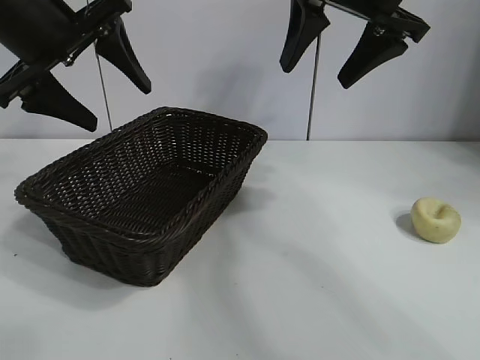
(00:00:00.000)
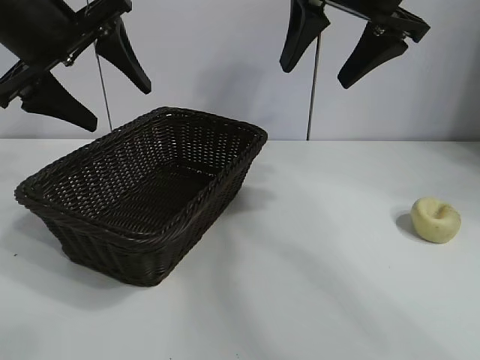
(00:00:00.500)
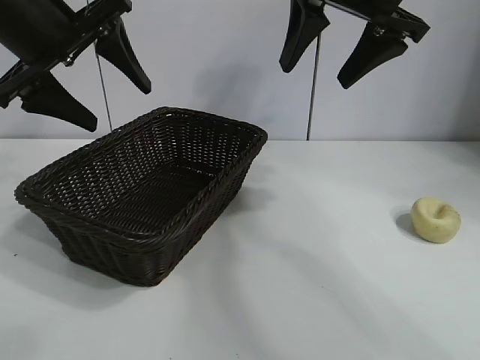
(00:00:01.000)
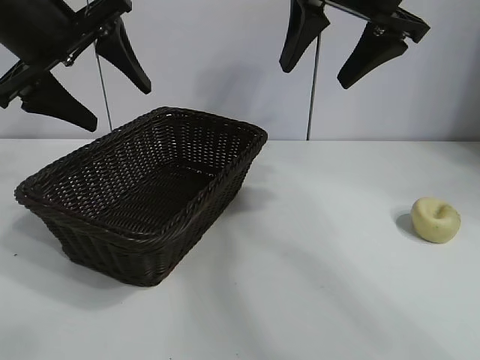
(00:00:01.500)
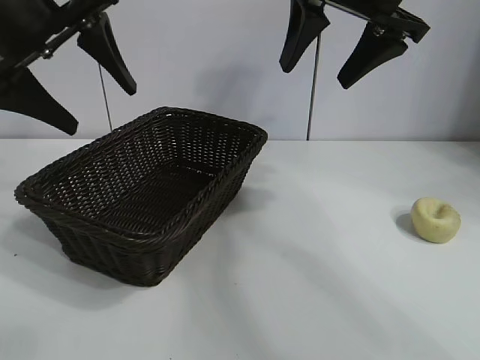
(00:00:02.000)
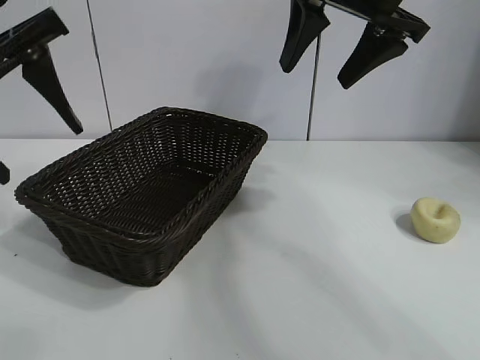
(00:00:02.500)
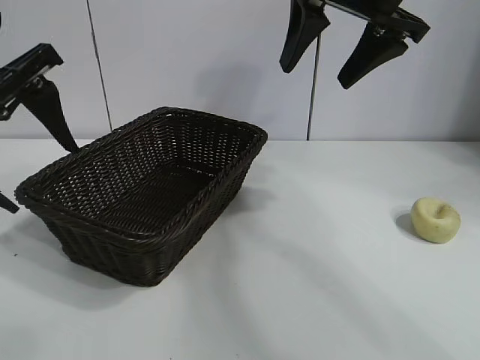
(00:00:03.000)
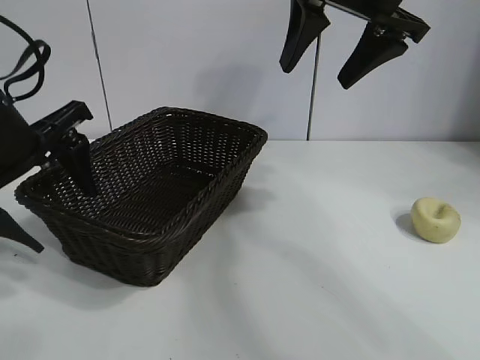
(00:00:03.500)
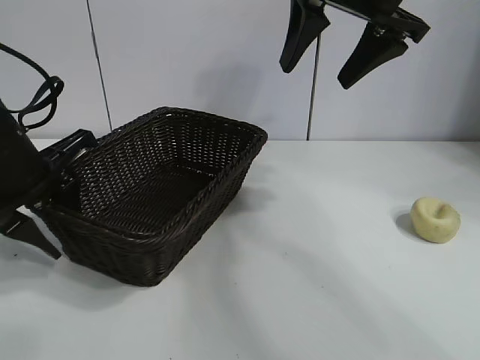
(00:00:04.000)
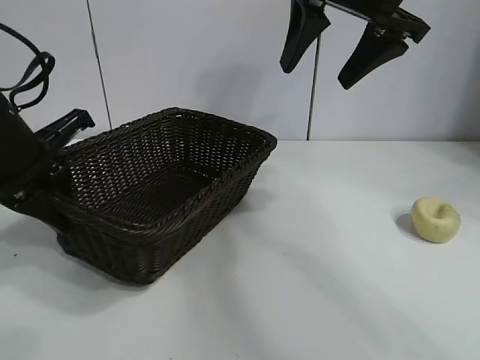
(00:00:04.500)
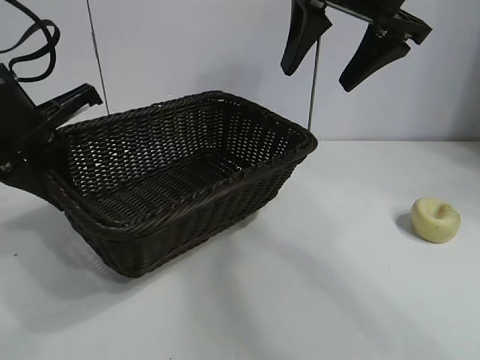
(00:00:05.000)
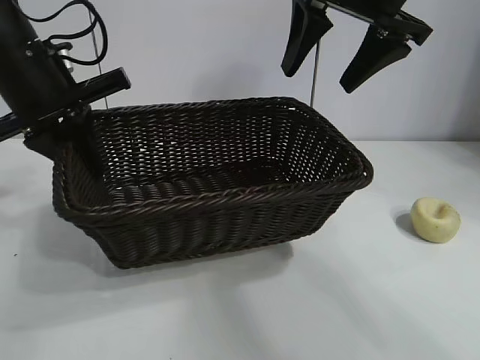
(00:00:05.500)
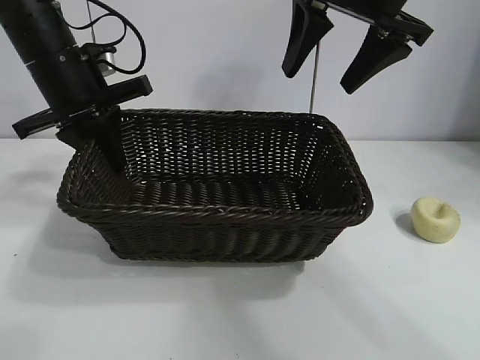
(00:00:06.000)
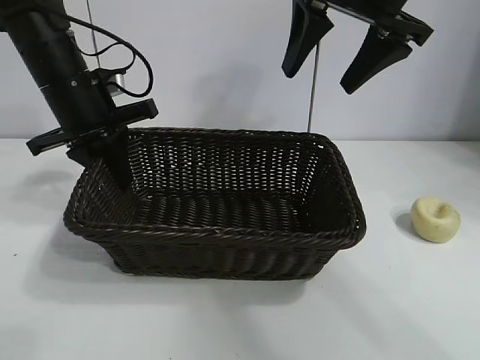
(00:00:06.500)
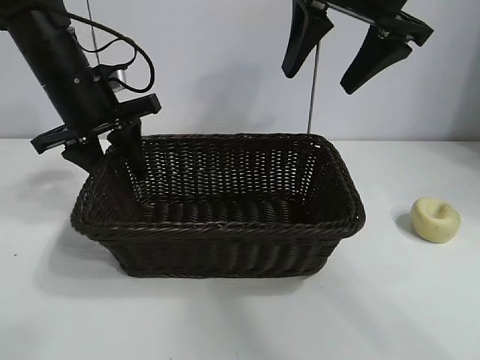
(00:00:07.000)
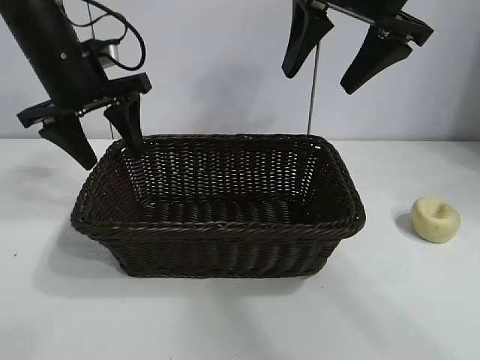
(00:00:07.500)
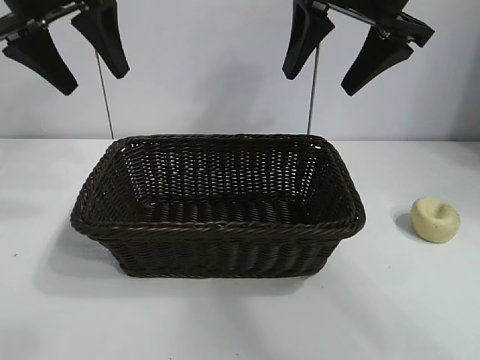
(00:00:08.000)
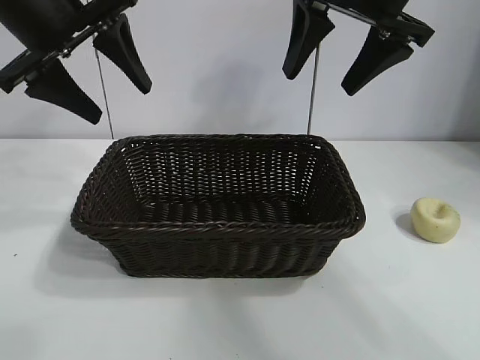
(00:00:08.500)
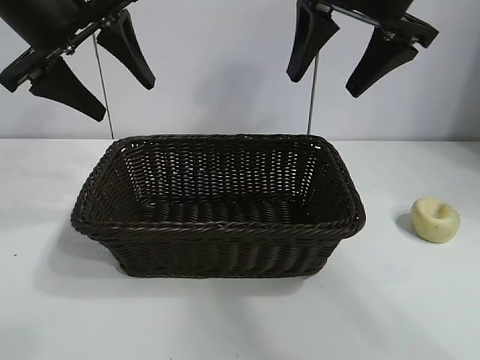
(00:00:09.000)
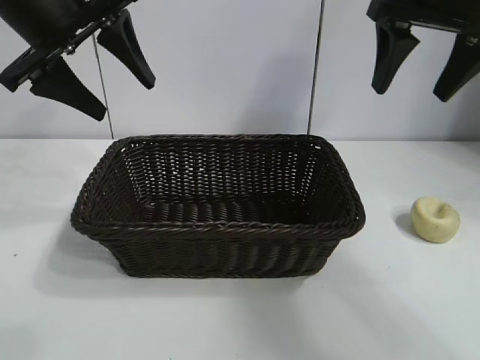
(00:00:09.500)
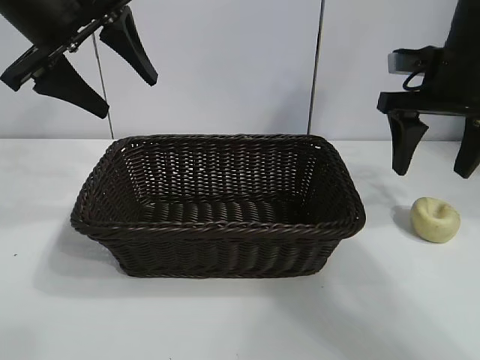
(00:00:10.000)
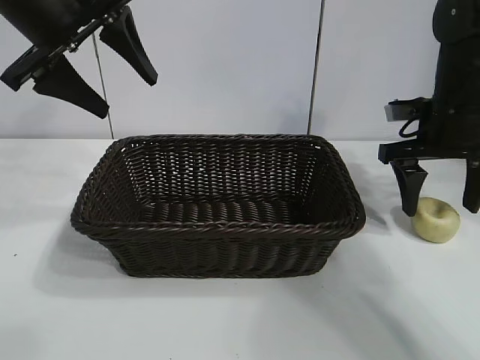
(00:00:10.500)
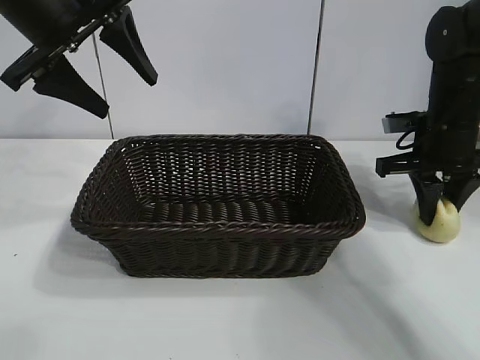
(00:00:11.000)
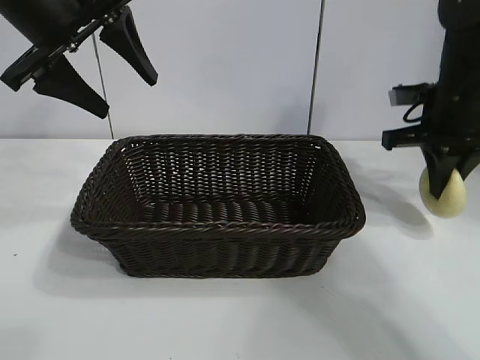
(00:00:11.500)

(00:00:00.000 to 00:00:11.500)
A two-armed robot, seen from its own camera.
Task of the whole recording: pick up the egg yolk pastry and put it into the basket.
Step, 00:00:01.500 - 00:00:04.000: Grasp the basket with left gripper.
Step, 00:00:04.500 - 00:00:07.000: Place the basket in the center of view with left gripper.
Step, 00:00:07.500 - 00:00:11.000: Grasp egg yolk pastry with right gripper.

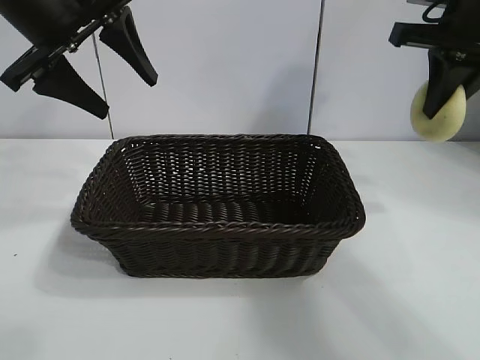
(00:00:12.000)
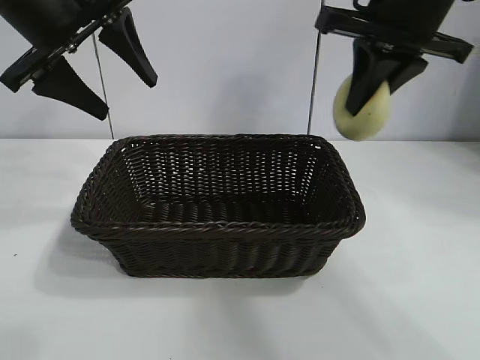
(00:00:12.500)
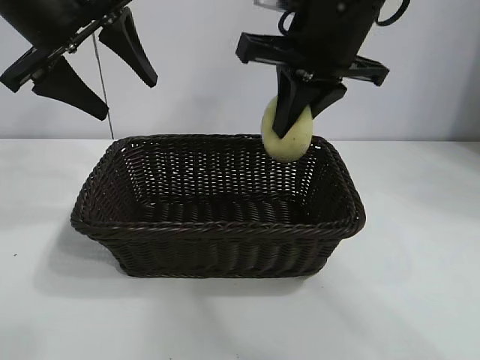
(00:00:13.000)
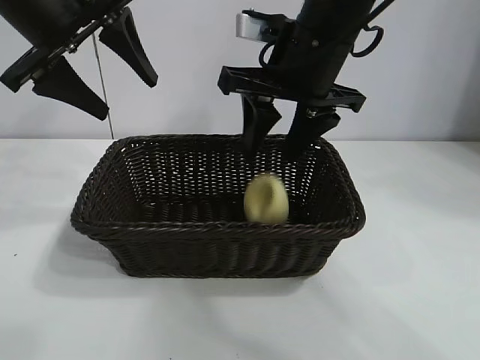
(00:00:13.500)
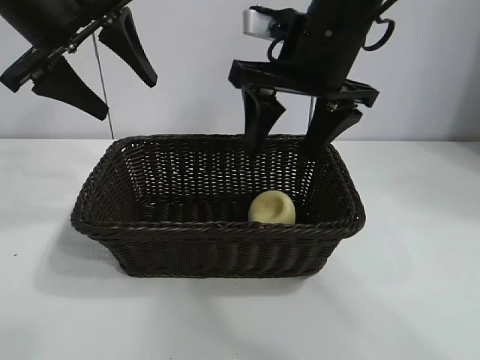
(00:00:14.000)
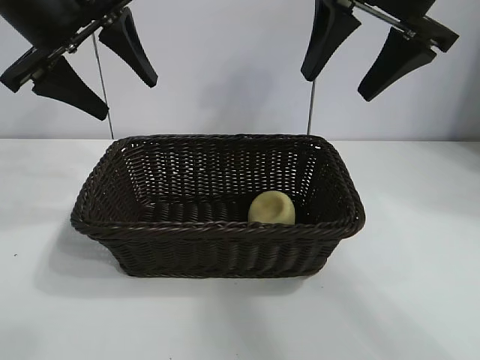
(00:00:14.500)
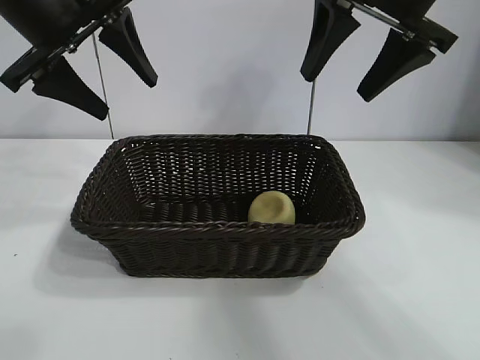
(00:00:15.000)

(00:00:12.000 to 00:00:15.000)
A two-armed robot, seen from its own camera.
Task of the whole recording: pick up the egg yolk pastry and put it into the basket.
Step, 00:00:12.000 - 00:00:13.500: Place the egg yolk pastry in the basket with right gripper.
